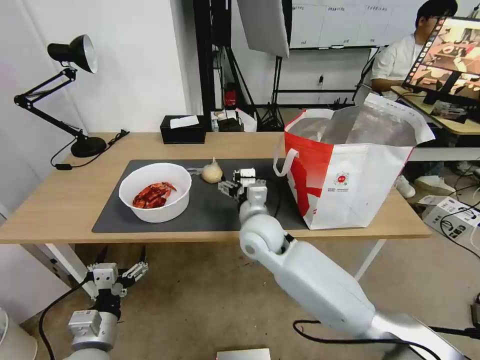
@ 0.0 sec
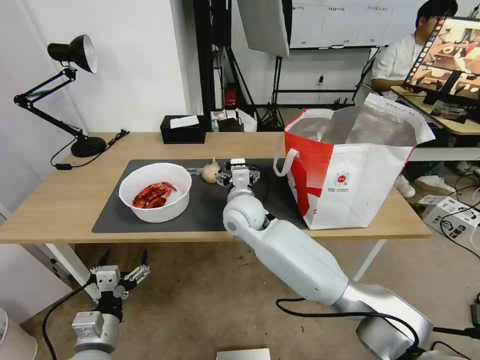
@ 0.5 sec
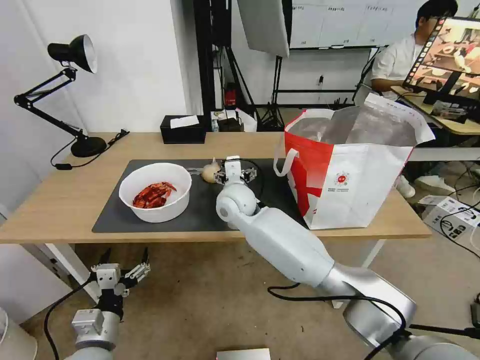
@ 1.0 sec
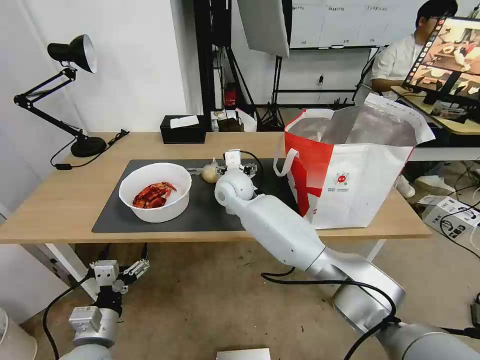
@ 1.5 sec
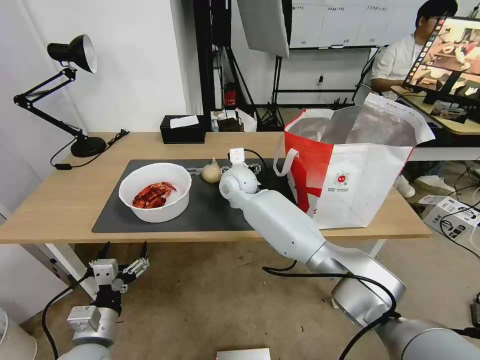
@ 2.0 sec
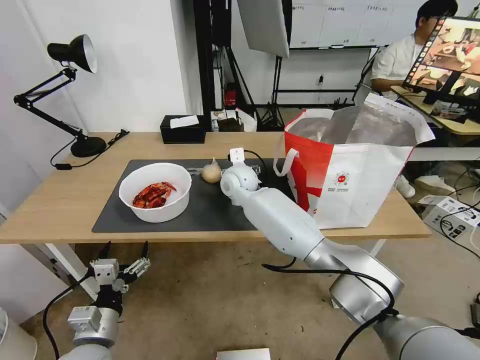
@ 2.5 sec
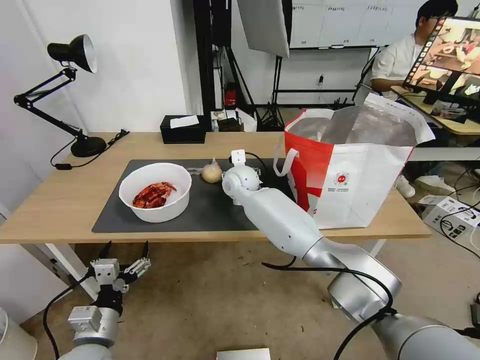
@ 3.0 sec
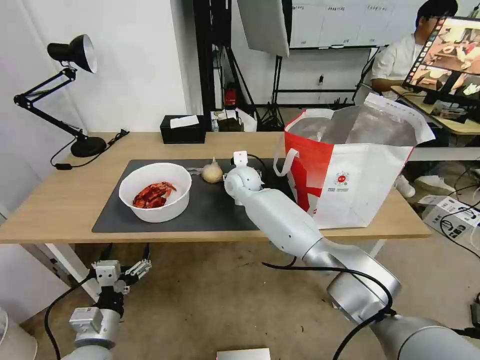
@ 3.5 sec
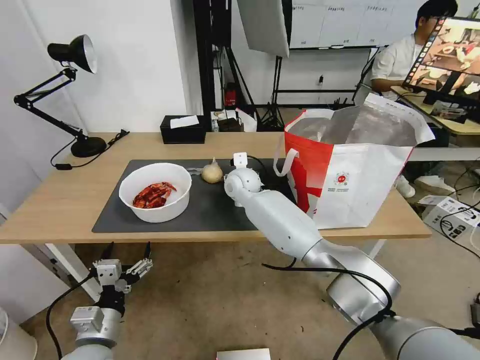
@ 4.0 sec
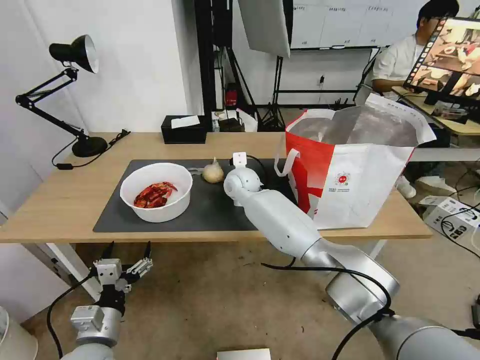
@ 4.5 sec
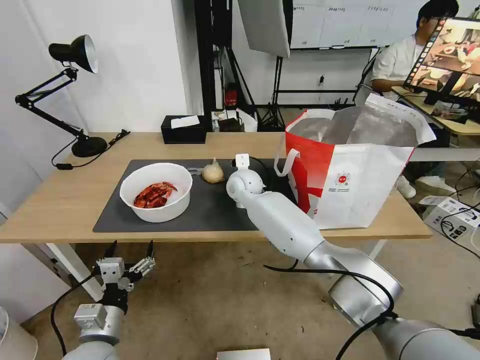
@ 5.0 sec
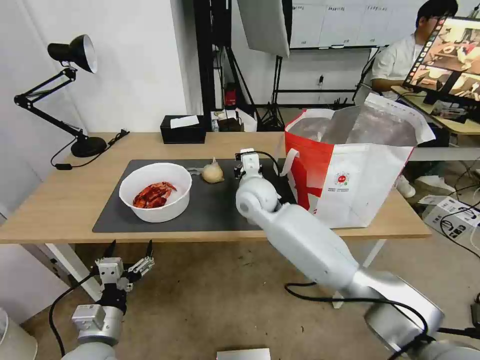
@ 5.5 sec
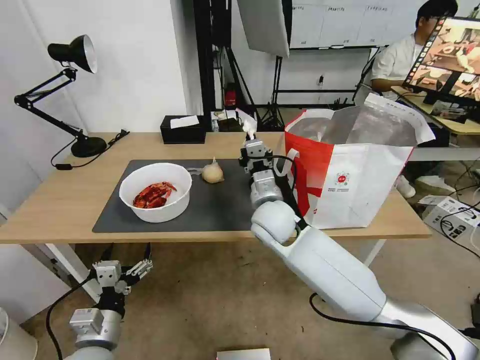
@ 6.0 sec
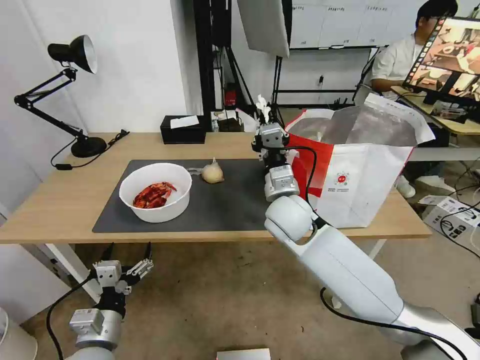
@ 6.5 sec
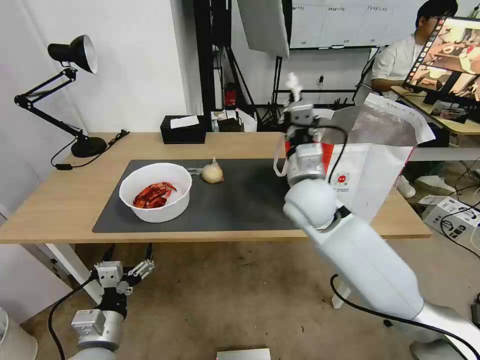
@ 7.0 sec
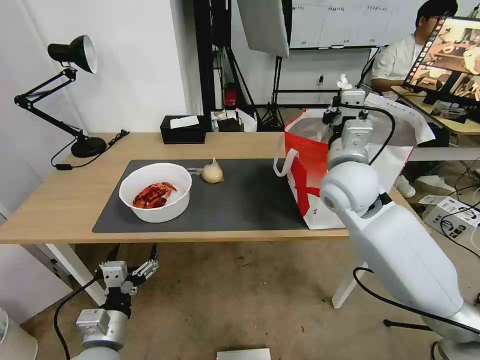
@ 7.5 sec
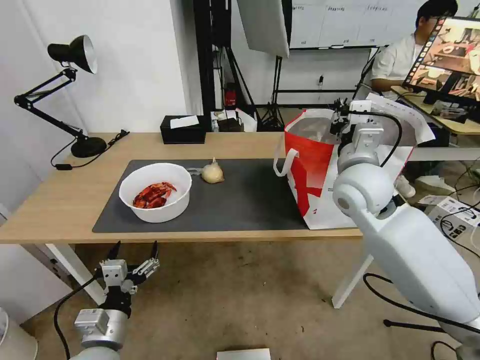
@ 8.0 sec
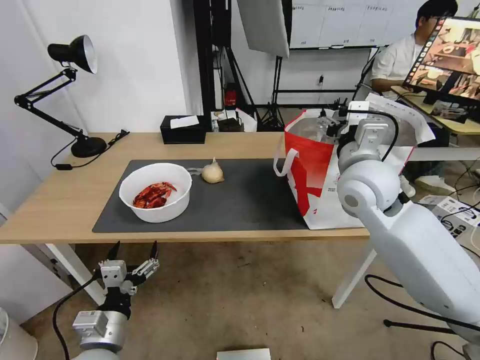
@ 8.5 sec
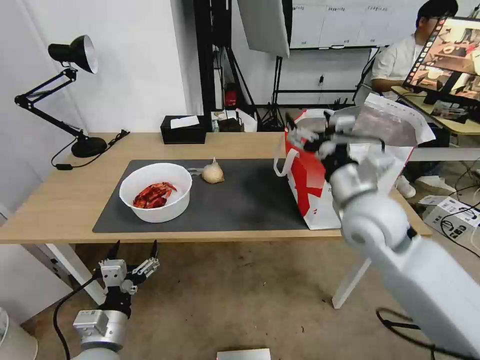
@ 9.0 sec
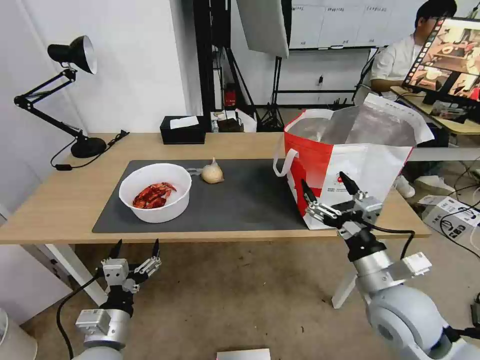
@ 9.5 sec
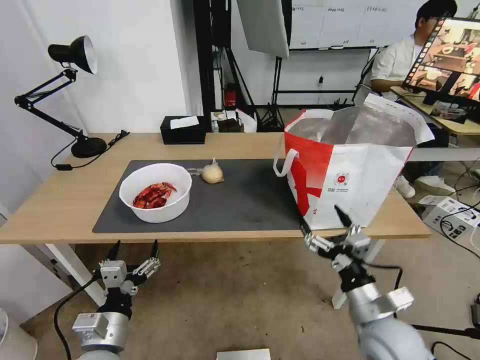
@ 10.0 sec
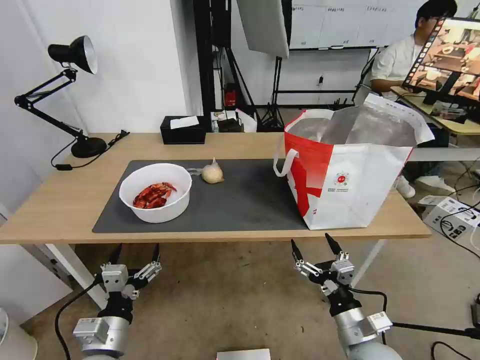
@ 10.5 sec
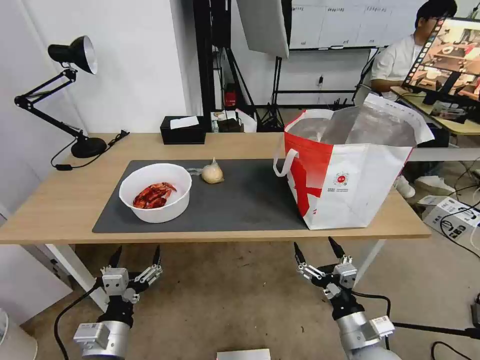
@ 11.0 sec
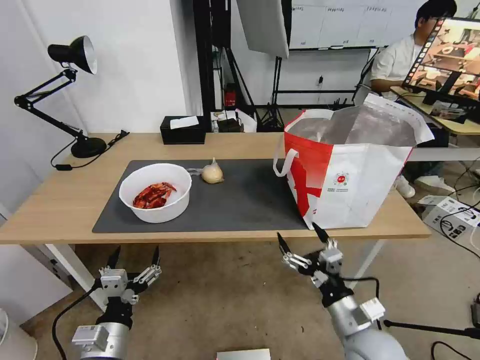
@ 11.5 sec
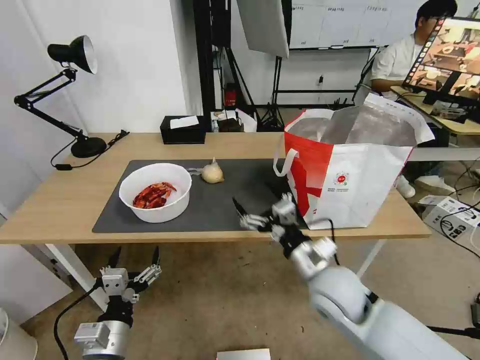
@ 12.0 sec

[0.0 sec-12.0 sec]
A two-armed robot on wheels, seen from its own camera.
Task of the whole recording: Pick up the trash from the table and place it into the takeout bag.
0.0 sec to 2.0 sec: The right gripper travels forward by roughly 15 cm.
2.0 sec to 4.0 sec: The grippers move only a little.
4.0 sec to 6.0 sec: The right gripper heads backward and to the right, covering about 15 cm, and closes its fingers.
6.0 sec to 8.0 sec: The right gripper goes some 20 cm to the right and upward.
8.0 sec to 10.0 sec: The right gripper is displaced backward and downward by some 30 cm, and opens its fingers.
10.0 sec to 12.0 sec: The right gripper travels to the left and forward by approximately 10 cm.

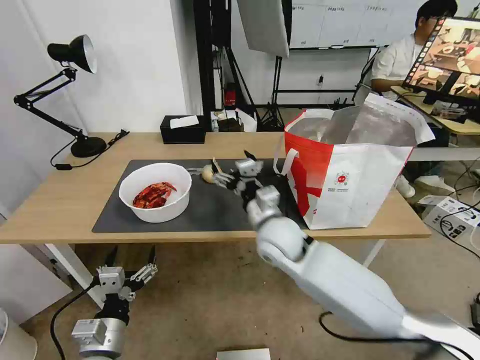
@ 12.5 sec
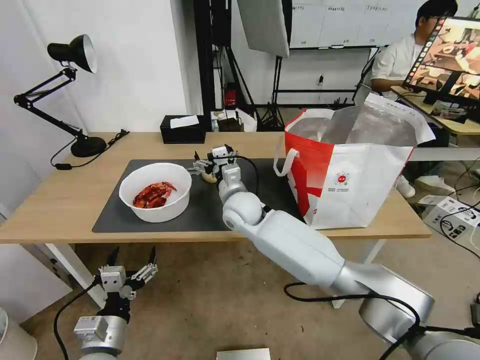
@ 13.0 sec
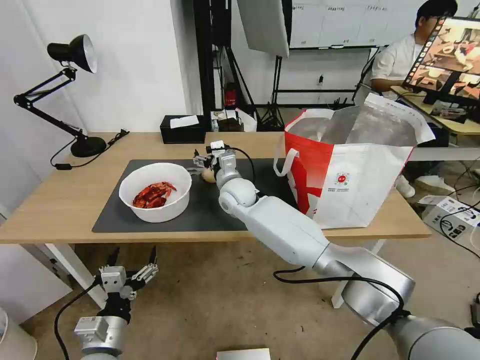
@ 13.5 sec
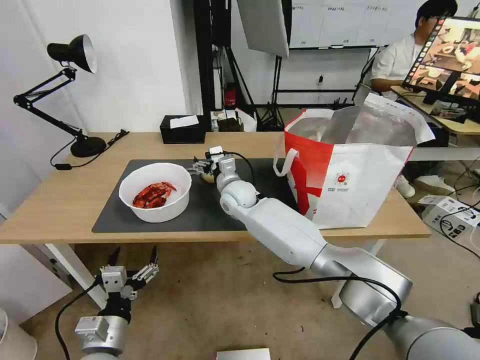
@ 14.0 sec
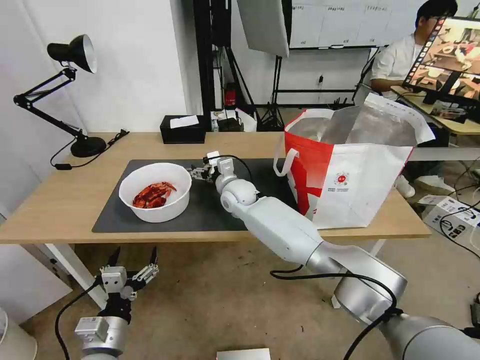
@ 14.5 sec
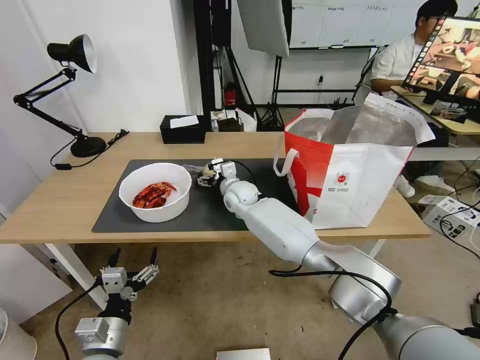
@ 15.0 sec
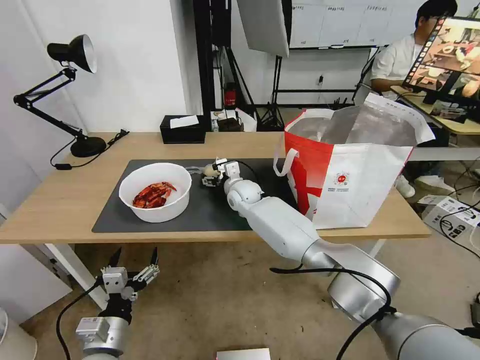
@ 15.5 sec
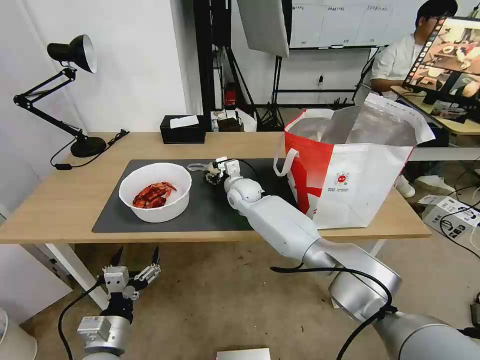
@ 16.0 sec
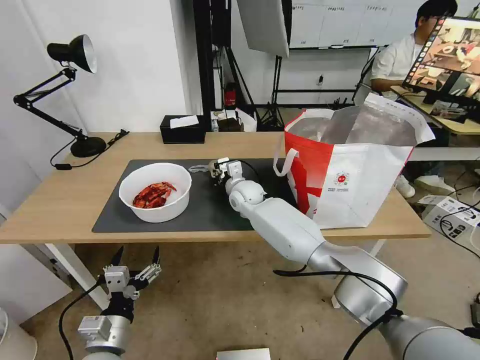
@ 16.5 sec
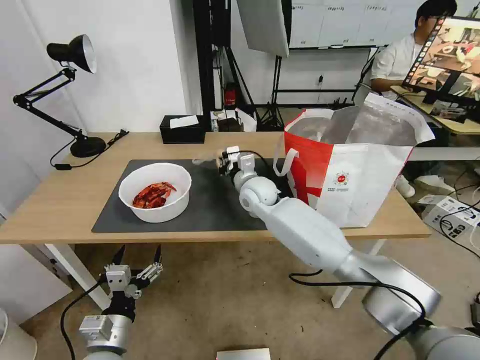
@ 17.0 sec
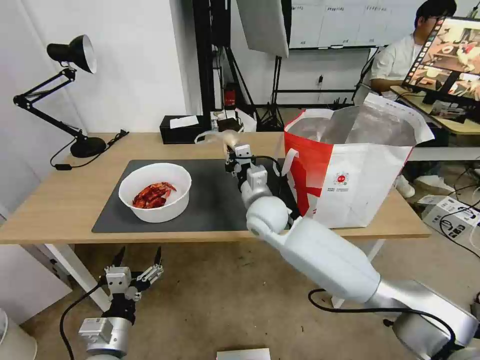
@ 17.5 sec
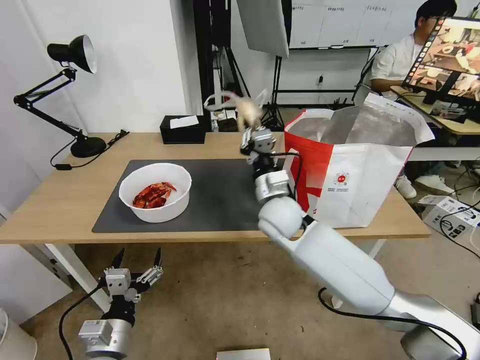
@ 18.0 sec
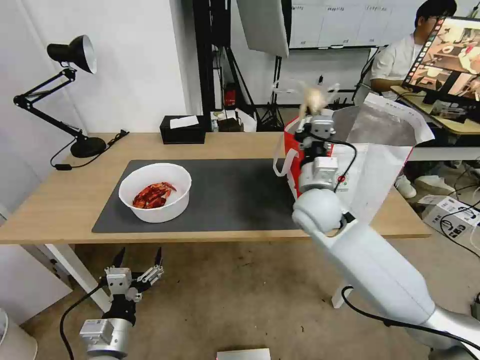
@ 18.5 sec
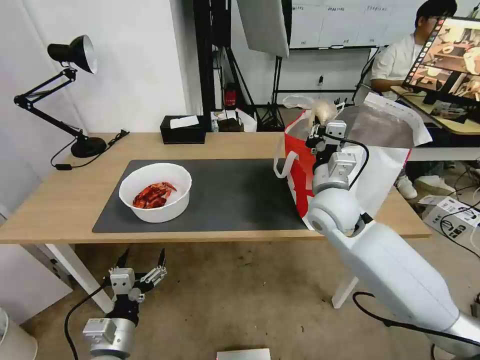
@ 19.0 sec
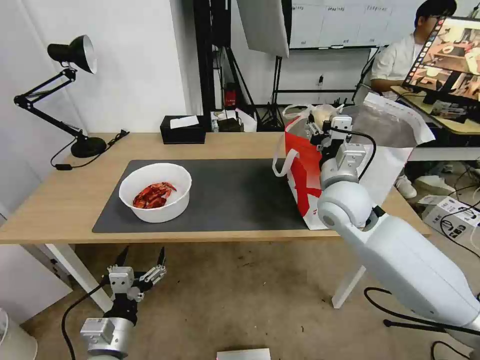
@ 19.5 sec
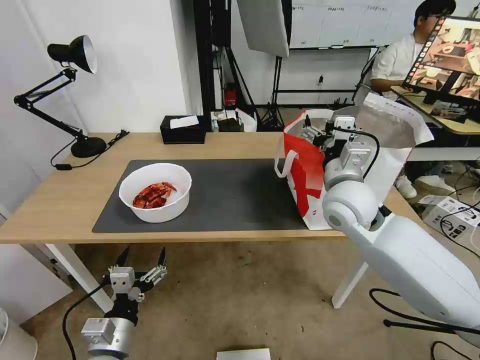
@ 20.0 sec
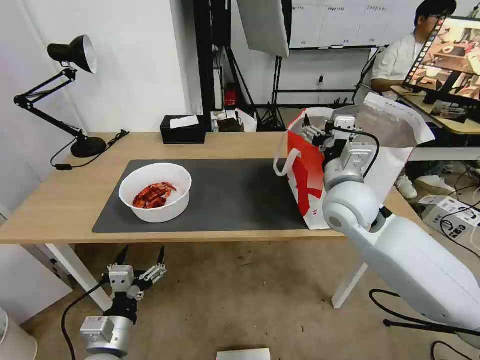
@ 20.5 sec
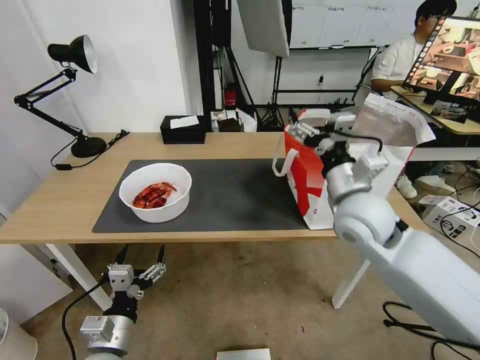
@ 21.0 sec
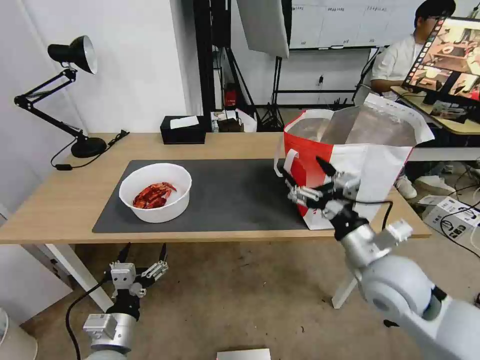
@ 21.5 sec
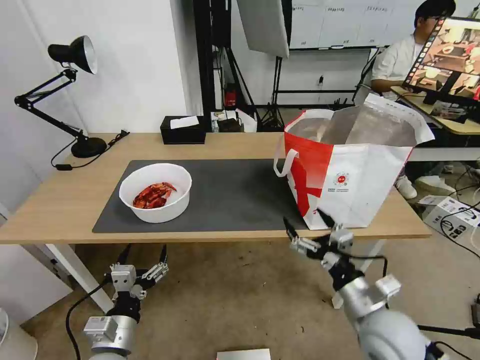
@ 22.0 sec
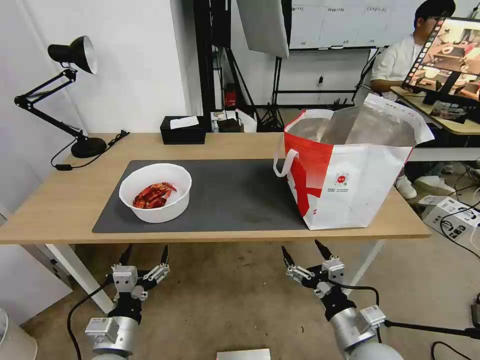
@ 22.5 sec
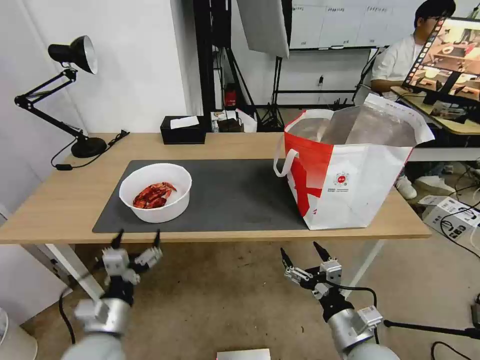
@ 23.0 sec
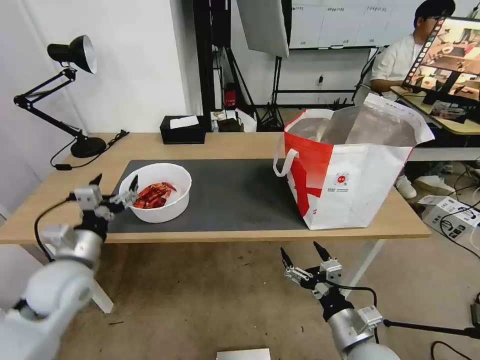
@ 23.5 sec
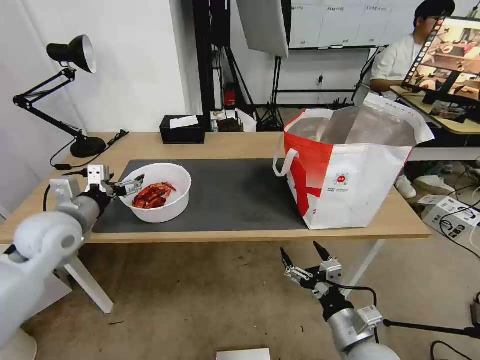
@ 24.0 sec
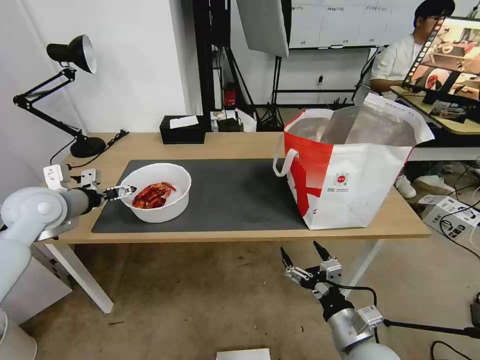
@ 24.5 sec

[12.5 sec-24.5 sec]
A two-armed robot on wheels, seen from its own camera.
Task of the whole recording: Pick up the trash from the table and place it into the takeout bag.
12.5 sec to 14.5 sec: The right gripper is displaced forward and to the left by roughly 20 cm.
14.5 sec to 16.5 sec: The right gripper closes its fingers.
16.5 sec to 18.5 sec: The right gripper moves backward, to the right and upward, approximately 25 cm.
18.5 sec to 20.5 sec: The right gripper shifts by approximately 5 cm, and opens up.
20.5 sec to 22.5 sec: The right gripper is displaced backward and downward by about 30 cm.
22.5 sec to 24.5 sec: The left gripper shifts approximately 35 cm forward, upward and to the left.

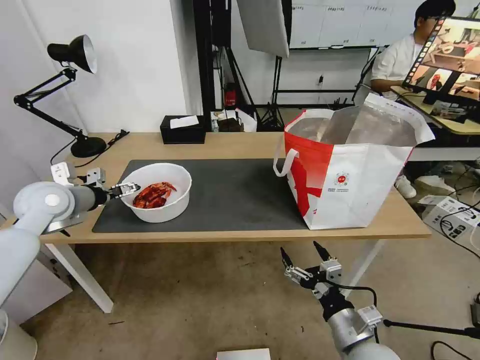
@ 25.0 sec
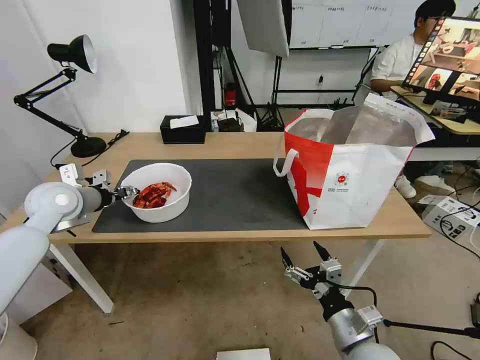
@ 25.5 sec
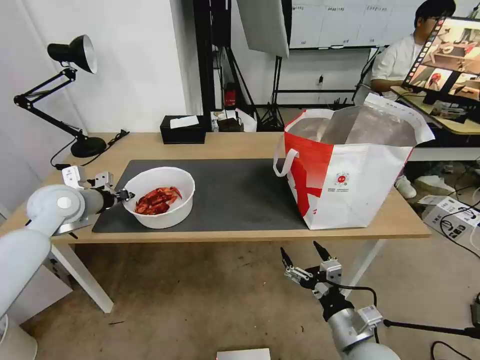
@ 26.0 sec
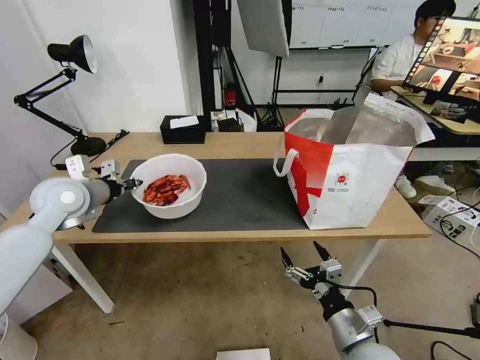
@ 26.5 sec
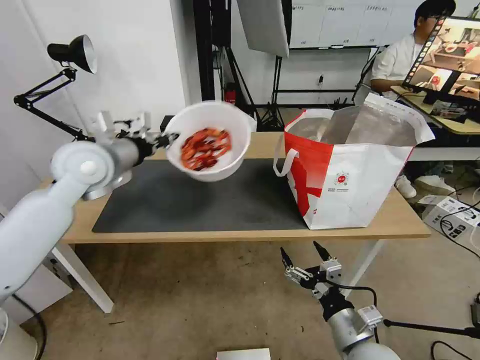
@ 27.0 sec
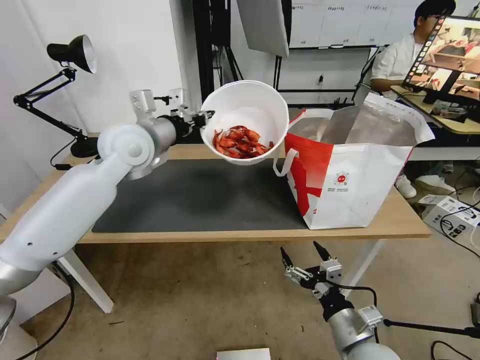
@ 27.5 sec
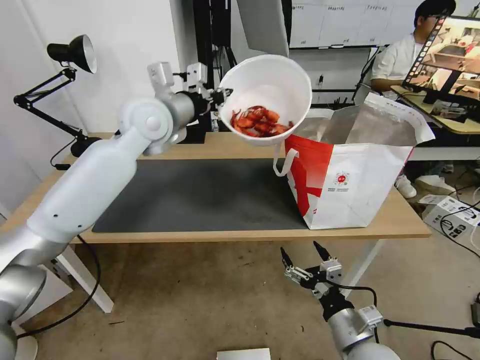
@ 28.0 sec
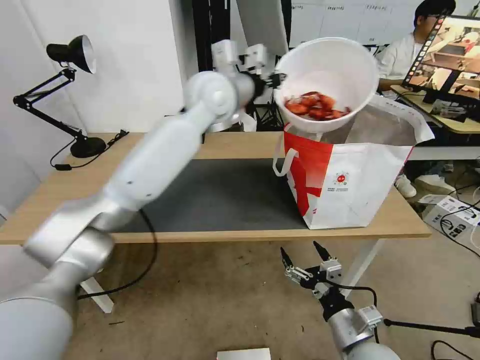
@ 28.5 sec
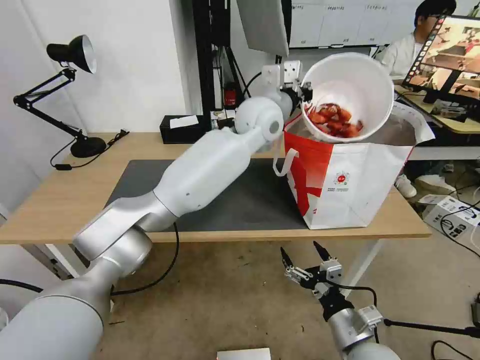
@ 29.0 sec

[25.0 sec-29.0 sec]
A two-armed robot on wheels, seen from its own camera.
Task of the whole recording: Pick up the trash from the table and place it into the takeout bag.
25.0 sec to 27.0 sec: The left gripper shifts about 15 cm to the right and upward, and closes up.
27.0 sec to 29.0 sec: The left gripper moves to the right, approximately 35 cm.
